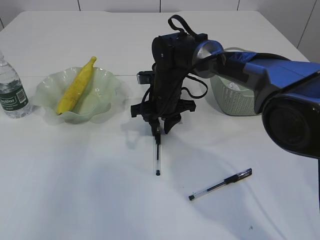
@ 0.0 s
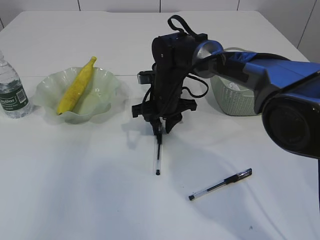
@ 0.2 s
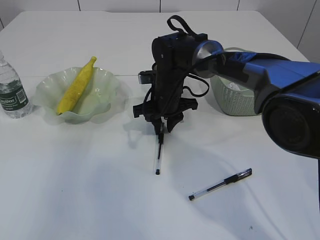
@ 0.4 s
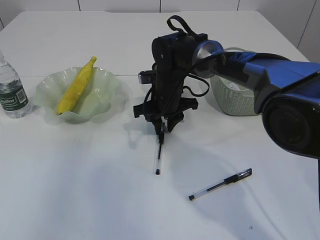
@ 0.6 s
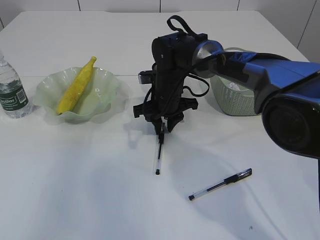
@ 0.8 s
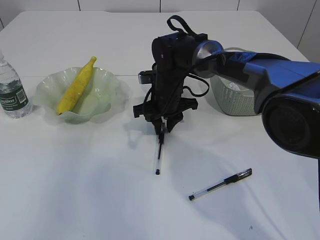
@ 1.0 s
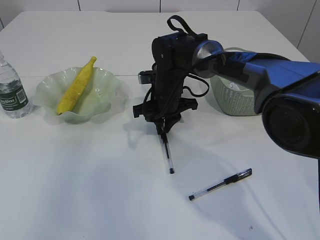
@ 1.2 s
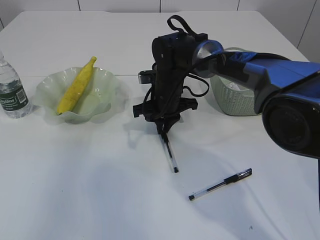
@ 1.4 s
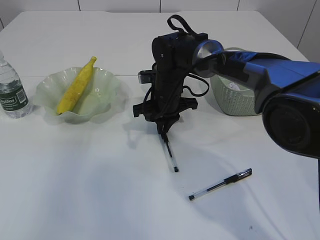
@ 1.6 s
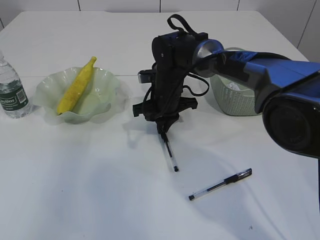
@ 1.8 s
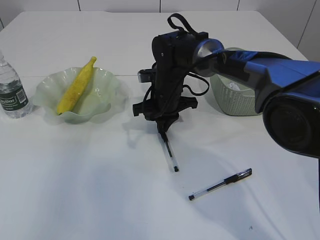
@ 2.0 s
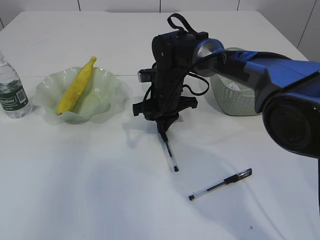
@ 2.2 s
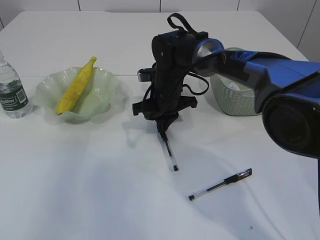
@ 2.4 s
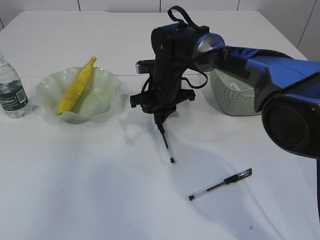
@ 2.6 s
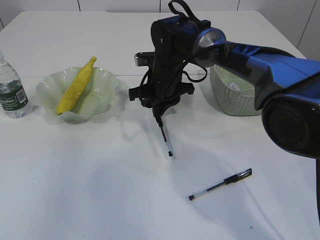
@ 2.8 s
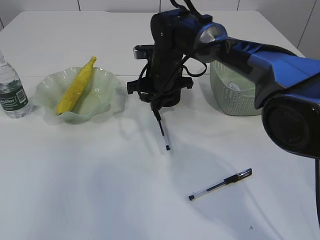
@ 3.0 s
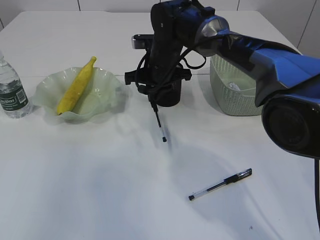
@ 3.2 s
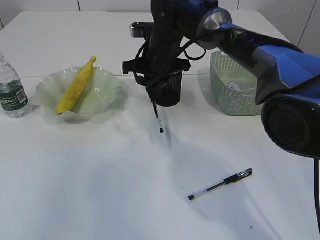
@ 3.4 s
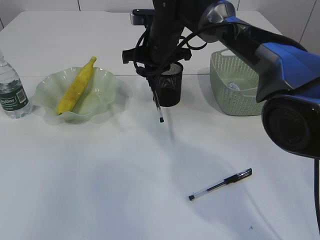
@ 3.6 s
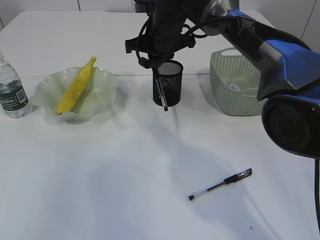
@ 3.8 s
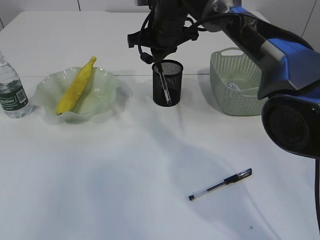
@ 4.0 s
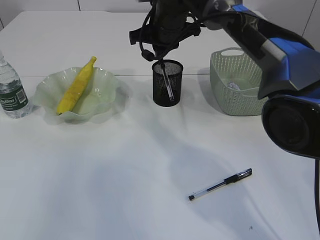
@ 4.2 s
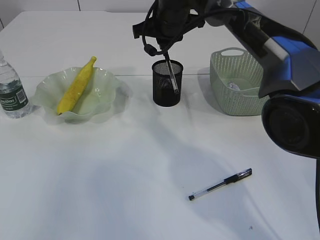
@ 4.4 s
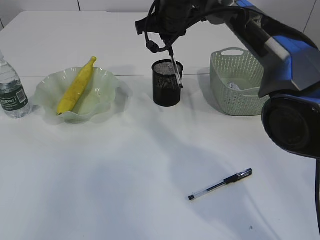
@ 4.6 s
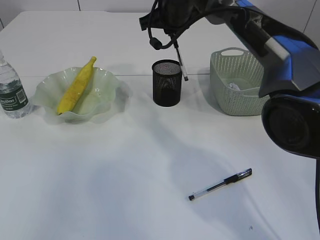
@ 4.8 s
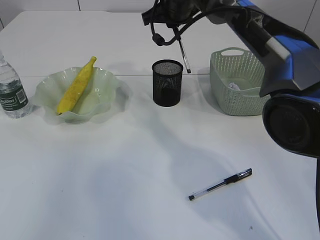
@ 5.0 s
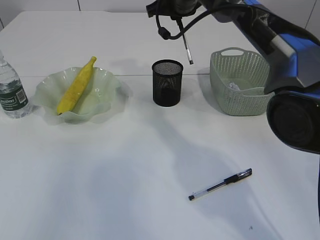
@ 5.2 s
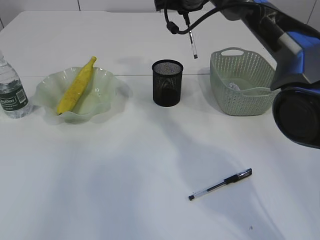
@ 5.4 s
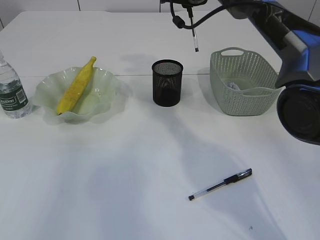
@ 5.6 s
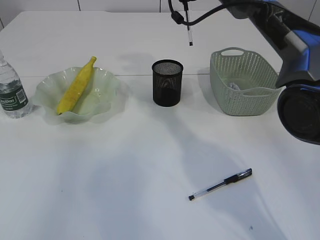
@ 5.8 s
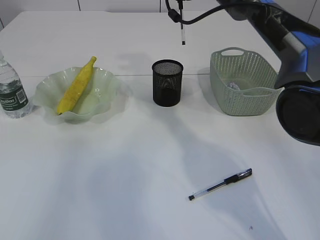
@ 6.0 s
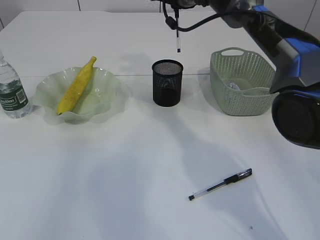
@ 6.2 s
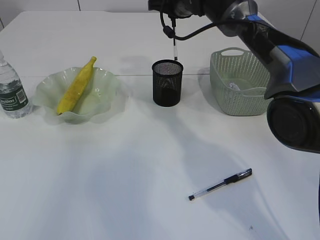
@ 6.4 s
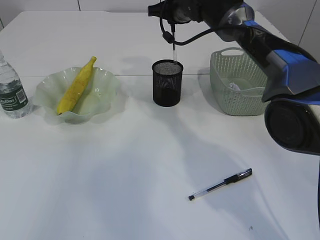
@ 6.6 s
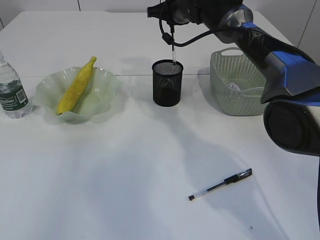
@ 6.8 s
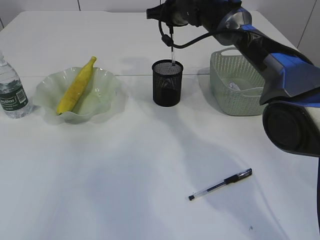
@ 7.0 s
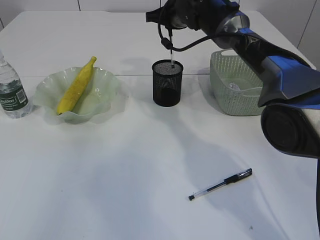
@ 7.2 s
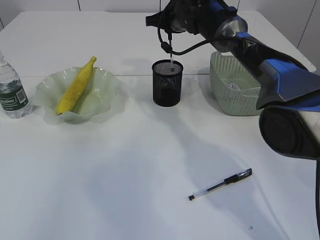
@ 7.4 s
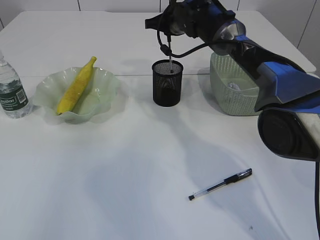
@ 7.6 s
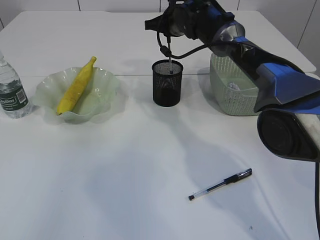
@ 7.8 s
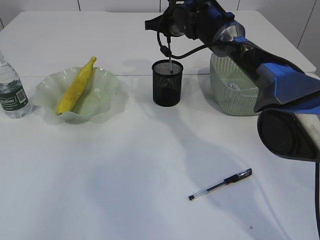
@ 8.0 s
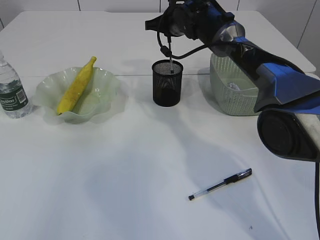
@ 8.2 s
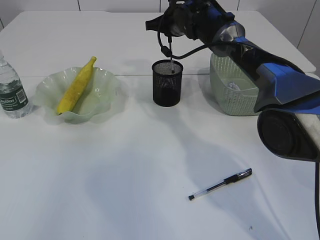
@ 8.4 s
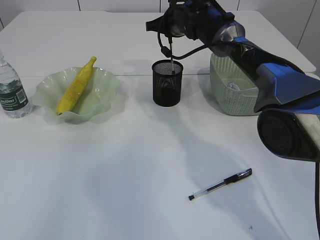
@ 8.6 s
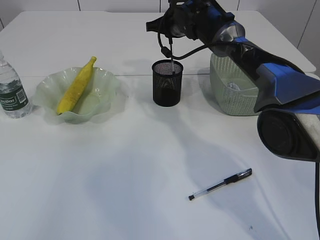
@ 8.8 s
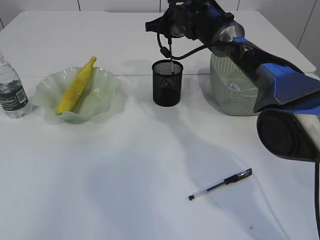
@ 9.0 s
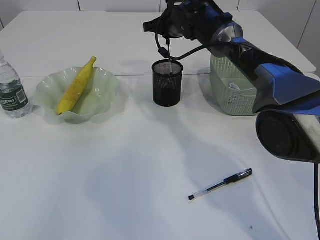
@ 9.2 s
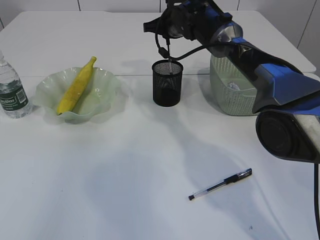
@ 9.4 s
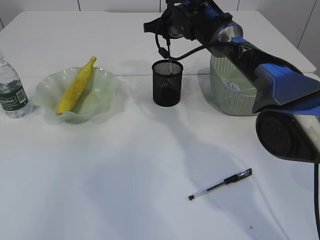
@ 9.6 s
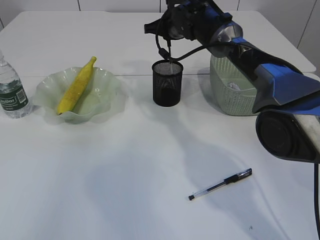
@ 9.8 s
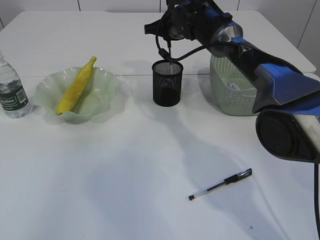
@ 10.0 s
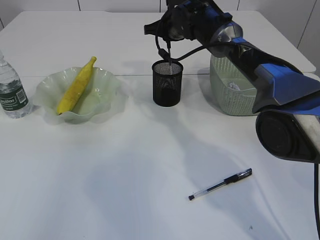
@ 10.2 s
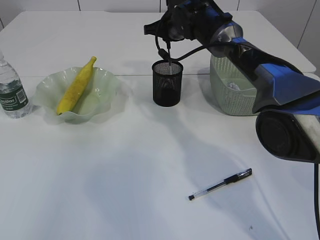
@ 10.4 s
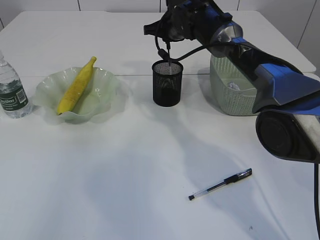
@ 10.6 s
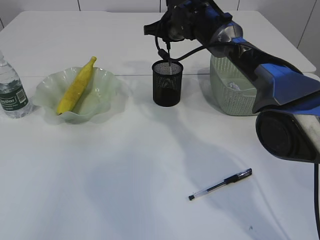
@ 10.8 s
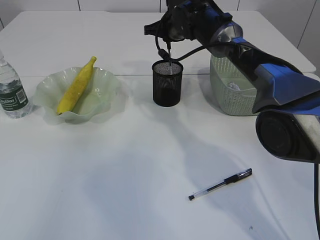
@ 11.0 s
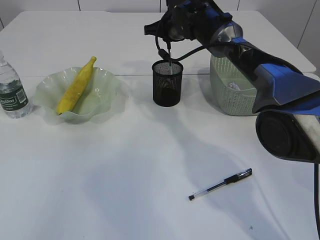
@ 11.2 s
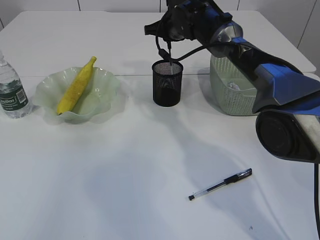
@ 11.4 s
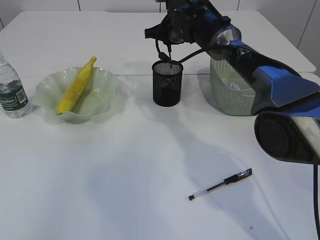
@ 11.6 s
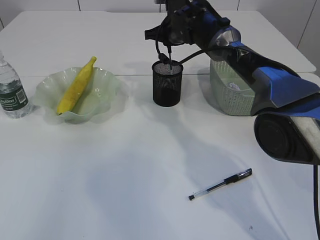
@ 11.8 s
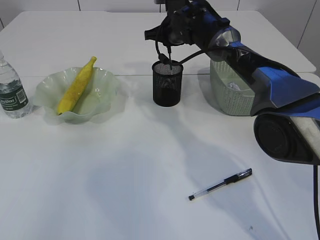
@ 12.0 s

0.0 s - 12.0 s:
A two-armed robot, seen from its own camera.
Step, 0.0 s - 3.2 s: Pick up the pen with right arm.
0.0 s - 1.6 s: Both grippers stay put.
1.6 s - 3.0 s: The grippers move only a little.
3.0 s - 4.4 s: The right gripper shifts some 10 cm upward.
4.4 s - 6.0 s: The right gripper changes place by approximately 10 cm.
6.0 s - 7.6 s: The right gripper goes approximately 10 cm downward.
7.6 s - 10.4 s: Both grippers stay put.
10.4 s - 12.0 s: Neither gripper changes place.

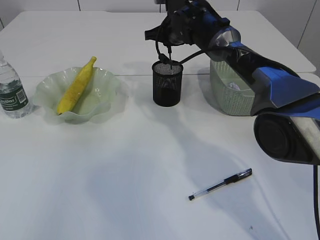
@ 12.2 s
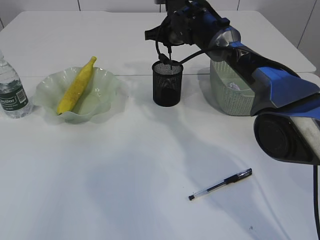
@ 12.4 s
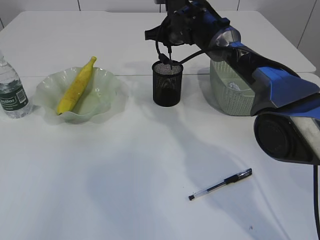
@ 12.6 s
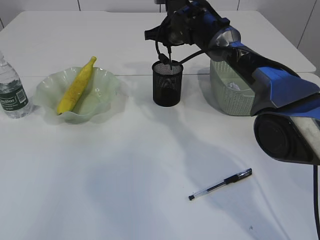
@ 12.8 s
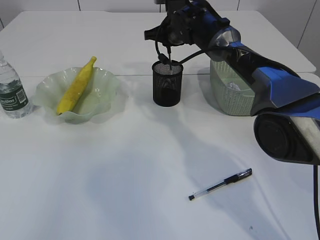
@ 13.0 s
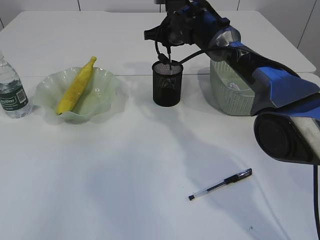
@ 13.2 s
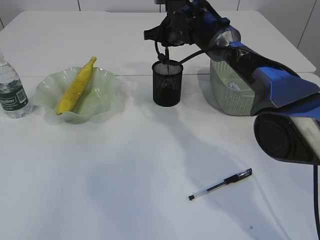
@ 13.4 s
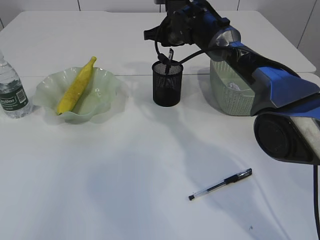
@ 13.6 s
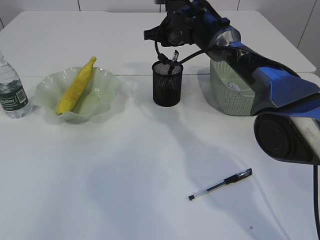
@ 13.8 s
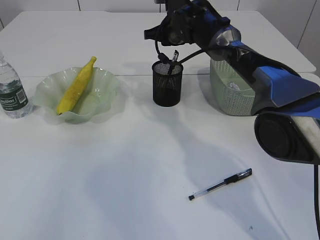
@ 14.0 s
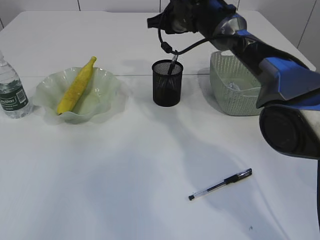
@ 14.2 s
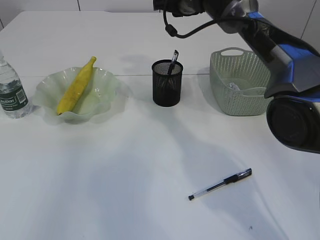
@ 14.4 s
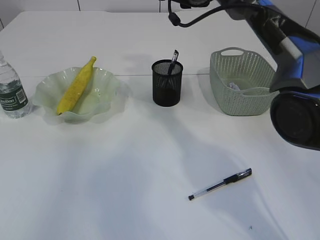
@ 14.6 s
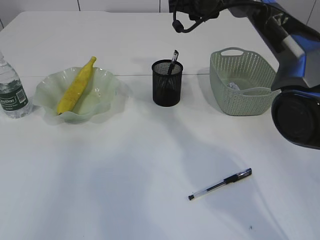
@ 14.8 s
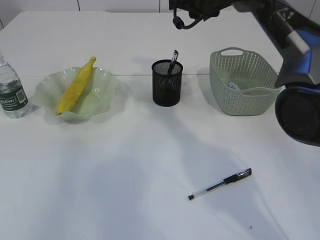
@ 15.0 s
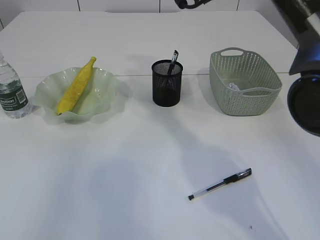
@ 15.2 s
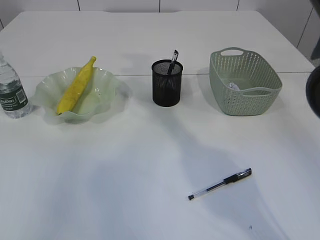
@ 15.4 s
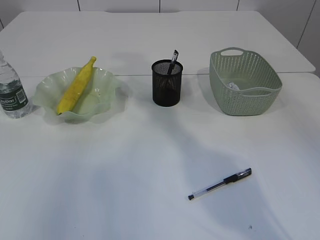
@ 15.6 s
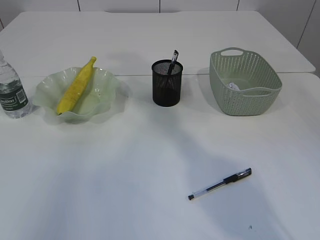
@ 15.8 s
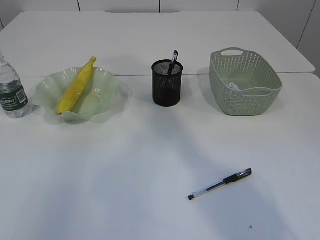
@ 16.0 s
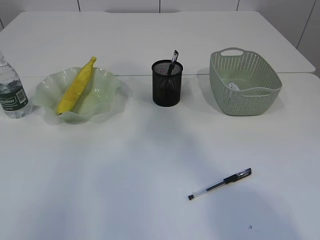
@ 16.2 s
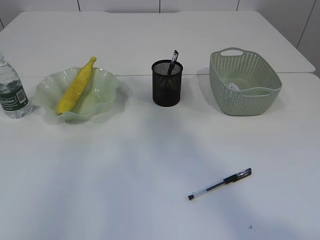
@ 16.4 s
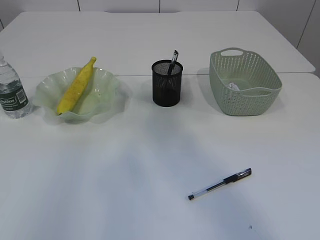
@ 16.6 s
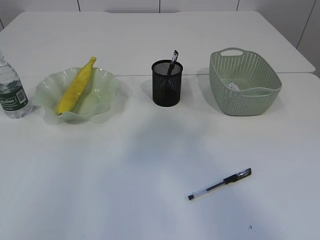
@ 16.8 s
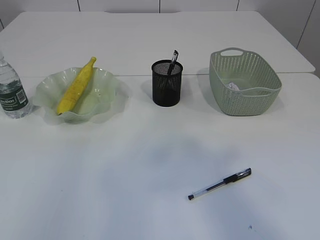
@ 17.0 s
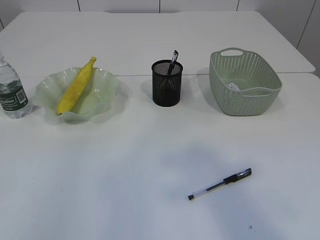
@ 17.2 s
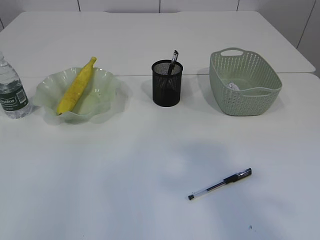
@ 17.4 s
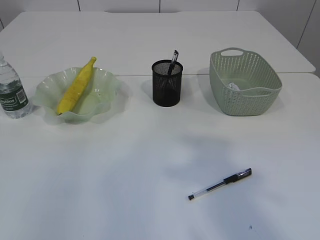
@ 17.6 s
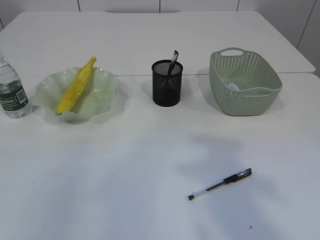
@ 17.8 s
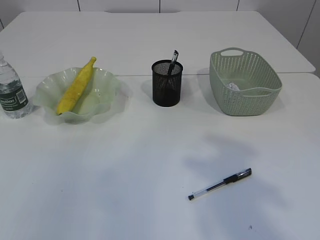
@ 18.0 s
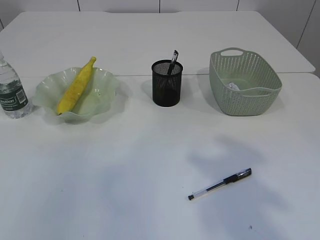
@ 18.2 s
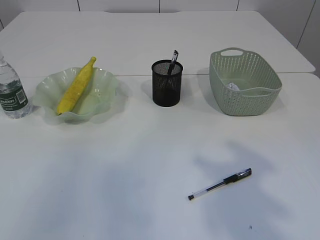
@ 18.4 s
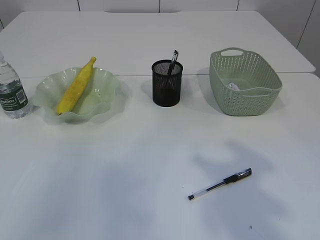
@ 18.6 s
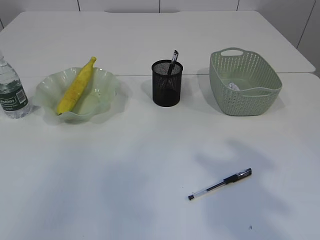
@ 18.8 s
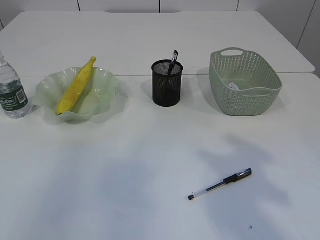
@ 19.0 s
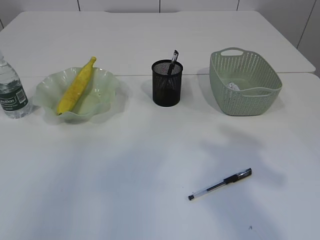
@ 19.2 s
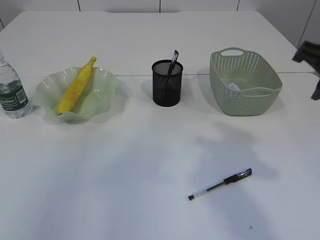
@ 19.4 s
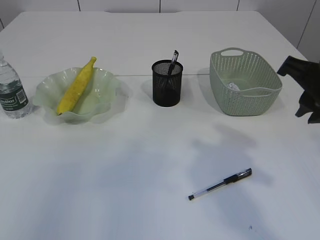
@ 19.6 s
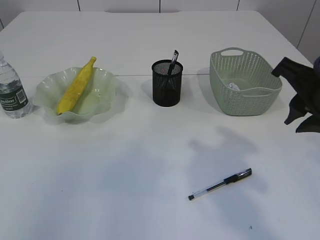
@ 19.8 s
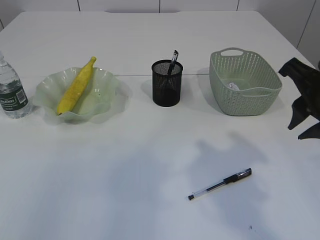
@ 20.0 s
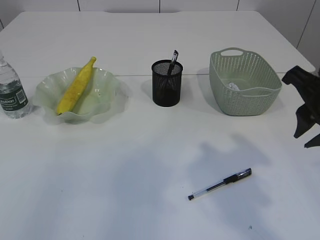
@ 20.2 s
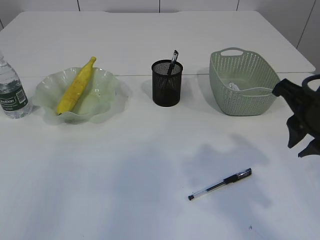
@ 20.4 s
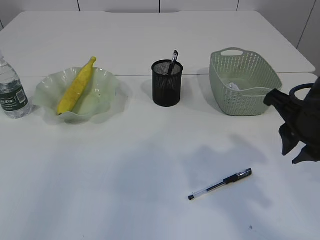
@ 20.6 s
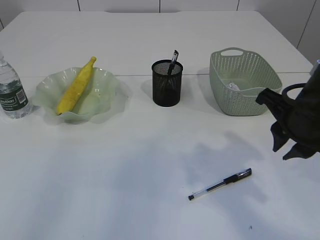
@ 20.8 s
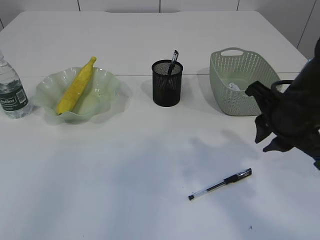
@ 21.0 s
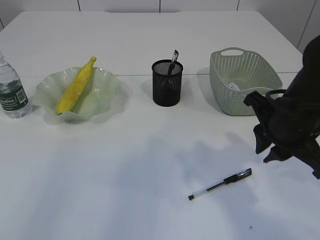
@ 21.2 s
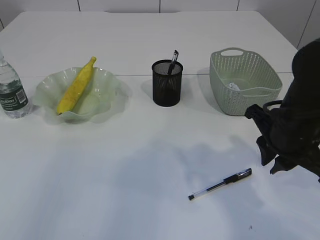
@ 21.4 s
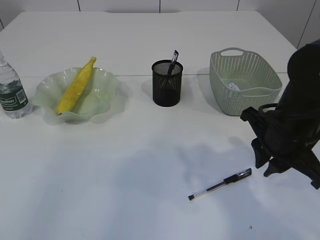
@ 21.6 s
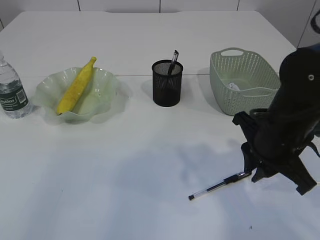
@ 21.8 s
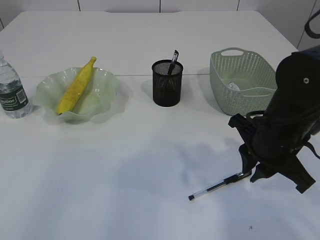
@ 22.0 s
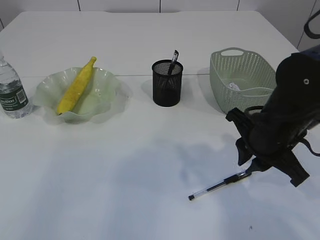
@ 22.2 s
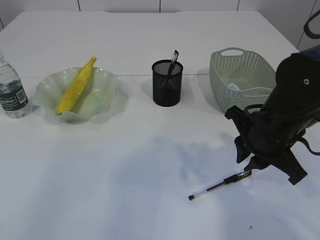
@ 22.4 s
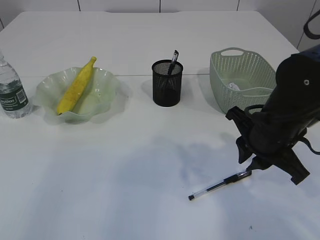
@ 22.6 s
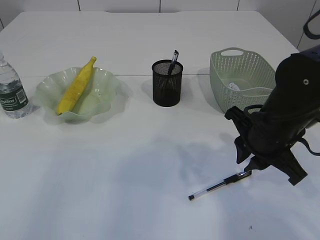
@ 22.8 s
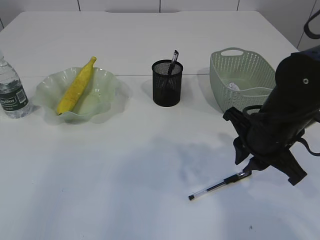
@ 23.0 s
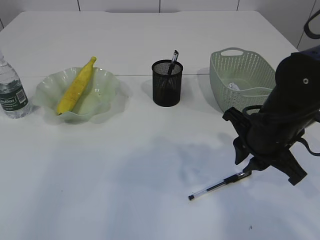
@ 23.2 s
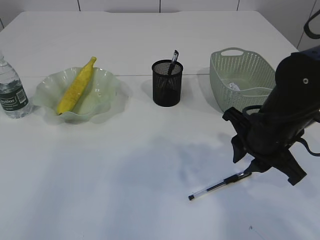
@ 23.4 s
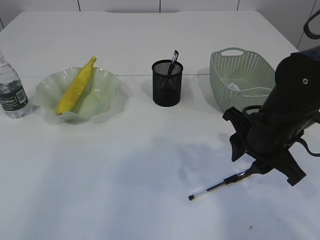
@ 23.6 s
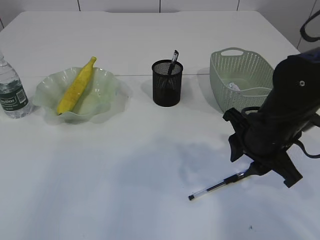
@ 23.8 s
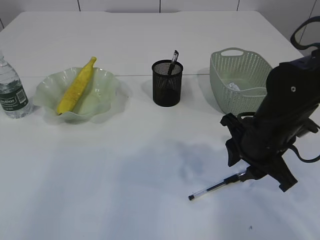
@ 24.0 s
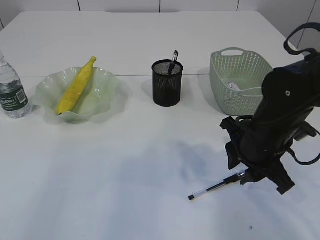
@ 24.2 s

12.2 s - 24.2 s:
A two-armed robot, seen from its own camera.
12.2 s - 13.8 s: Neither gripper changes place.
13.8 s - 15.2 s: The right gripper travels upward and backward by approximately 15 cm.
15.2 s - 16.6 s: The right gripper goes about 40 cm backward and upward.
16.6 s - 18.2 s: The right gripper travels downward by roughly 25 cm.
18.2 s - 19.8 s: The right gripper goes about 10 cm downward and forward.
19.8 s - 21.2 s: The right gripper shifts about 5 cm downward.
21.2 s - 22.6 s: There are only small adjustments of the grippers.
22.6 s - 24.2 s: The grippers make only small movements.
